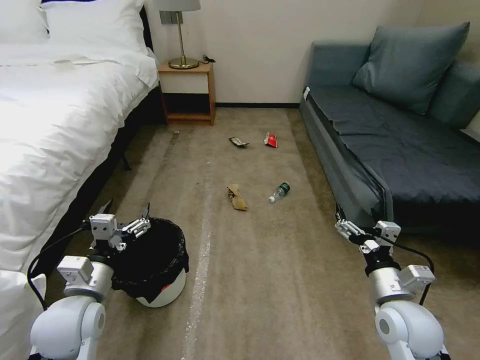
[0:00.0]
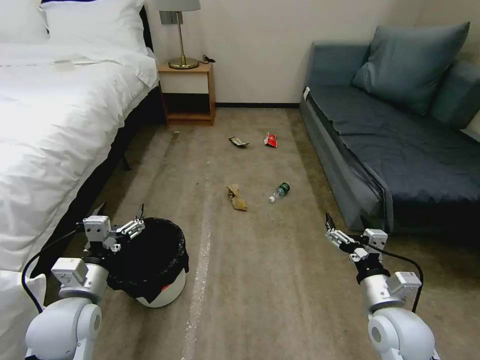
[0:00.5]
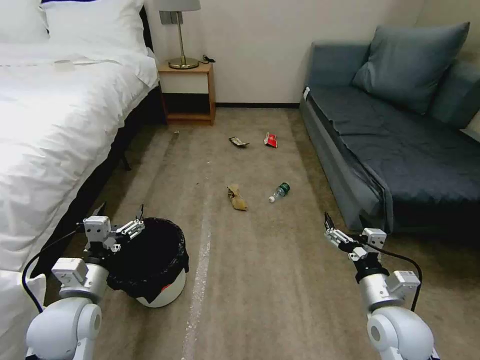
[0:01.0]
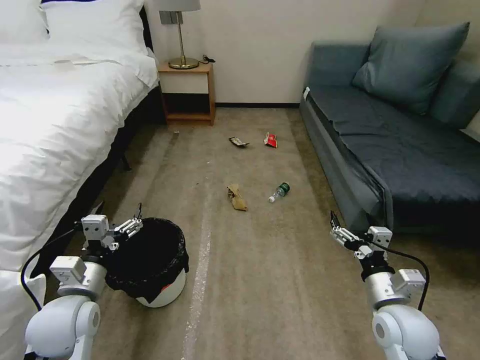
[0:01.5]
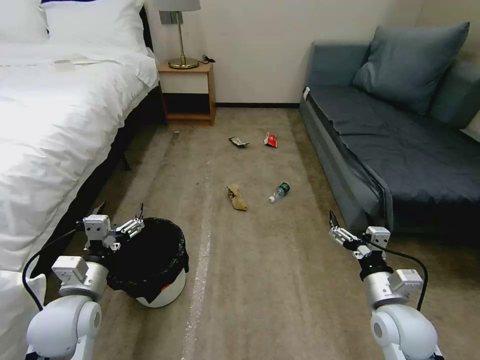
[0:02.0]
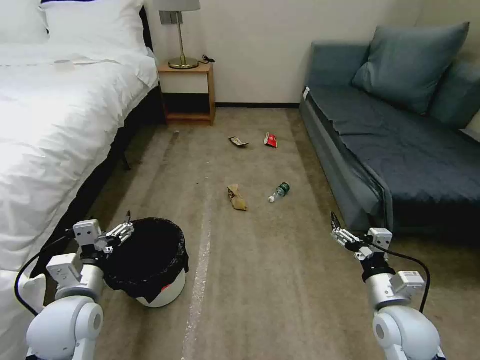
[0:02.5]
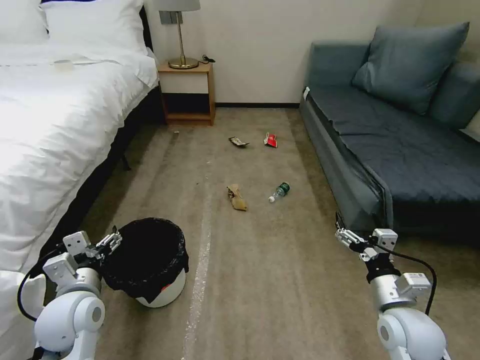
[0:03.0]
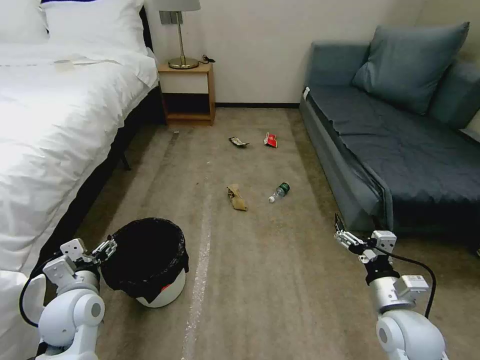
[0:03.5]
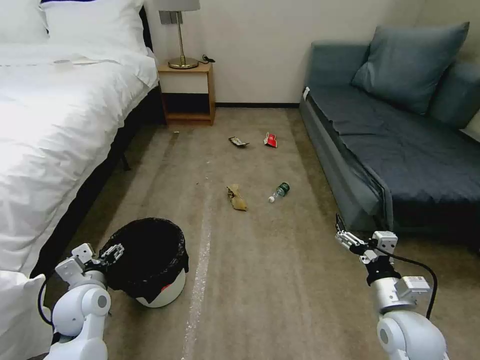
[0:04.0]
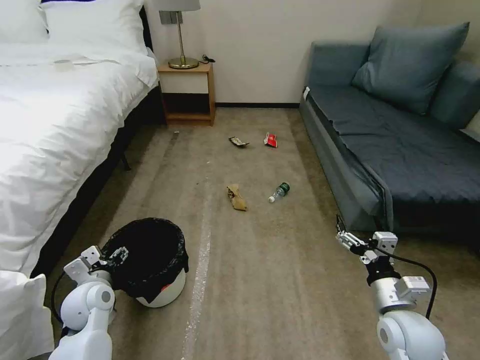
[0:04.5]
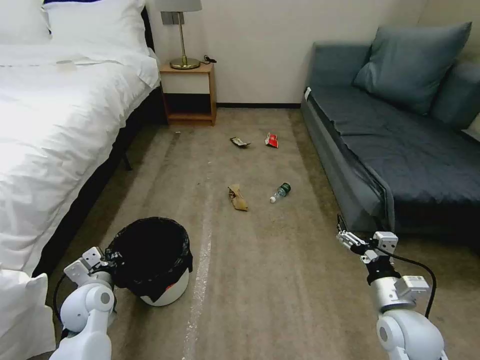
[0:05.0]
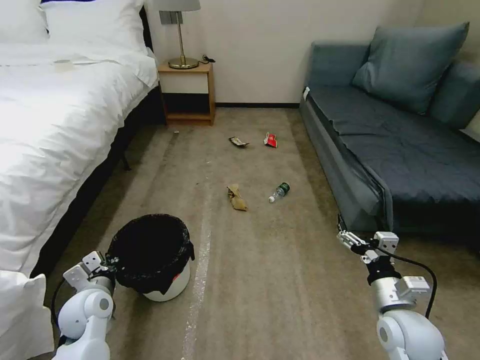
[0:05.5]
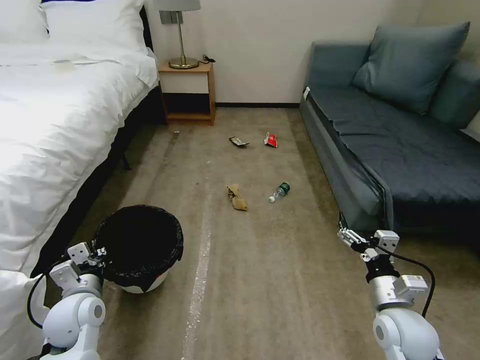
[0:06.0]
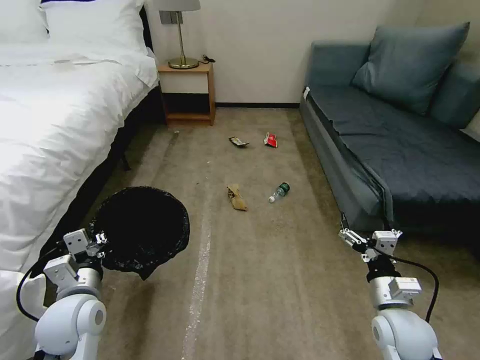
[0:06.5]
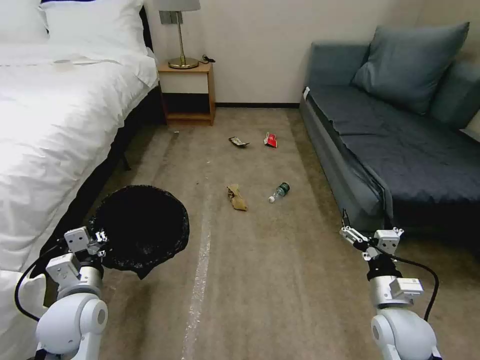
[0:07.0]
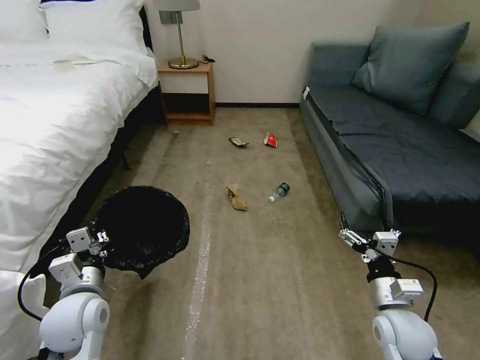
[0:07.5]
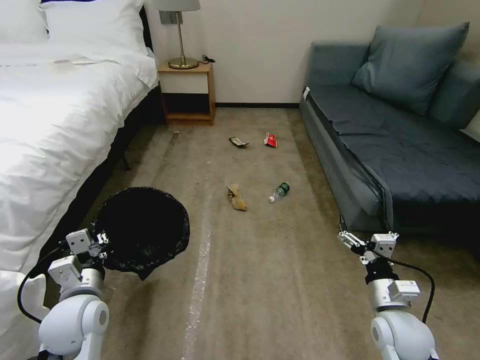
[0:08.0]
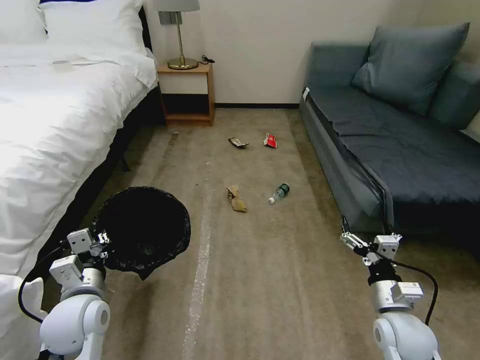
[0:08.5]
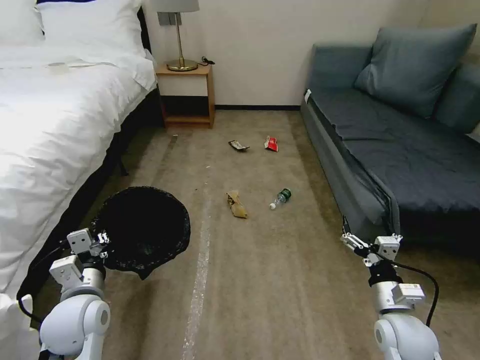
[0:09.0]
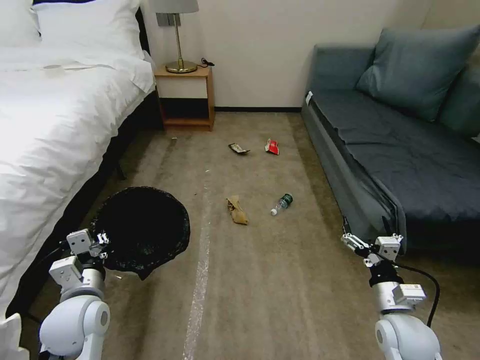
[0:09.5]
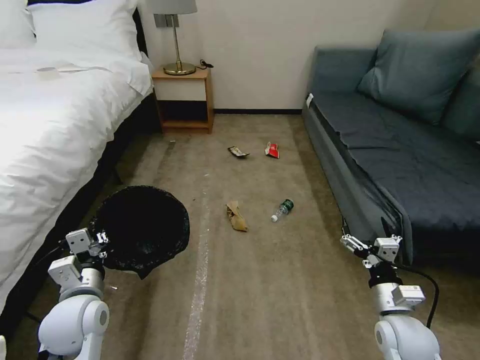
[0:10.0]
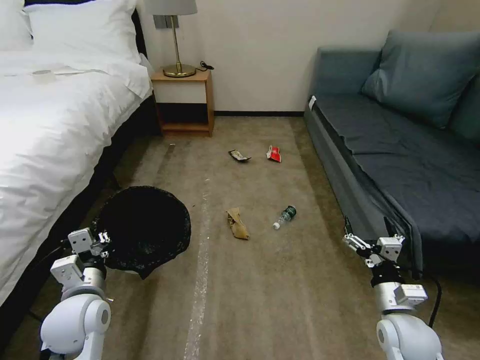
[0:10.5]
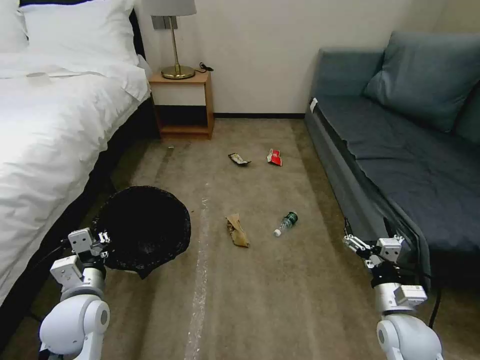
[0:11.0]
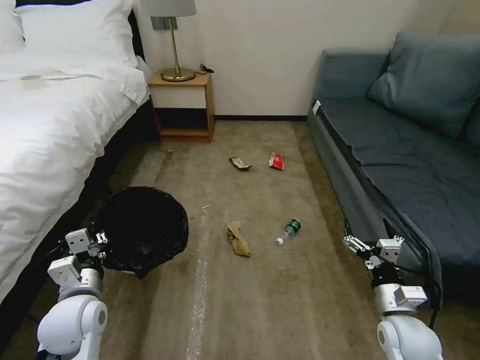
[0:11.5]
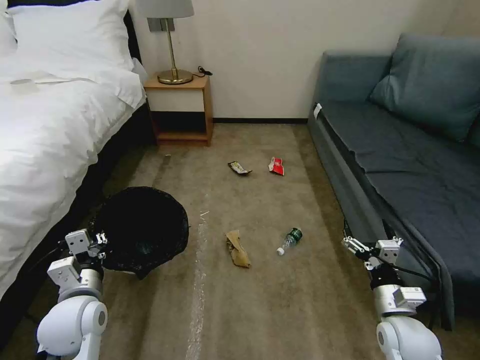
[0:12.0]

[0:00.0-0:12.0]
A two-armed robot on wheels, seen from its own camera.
Task of the whole recording: Pick up the trash bin, then pick up the garbage on the floor and place it into the trash bin.
0:04.0 to 0:06.0: The left gripper heads downward, covering some 10 cm, and closes its fingers.
0:06.0 to 0:08.0: The left gripper travels upward by some 5 cm.
0:08.0 to 0:10.0: Both grippers stay put.

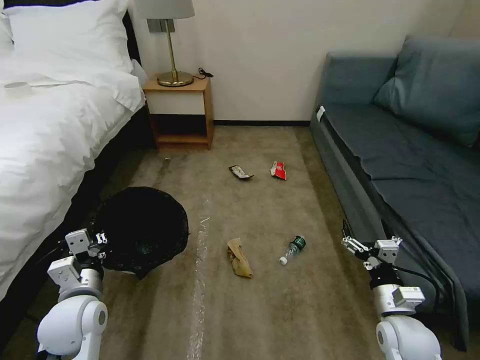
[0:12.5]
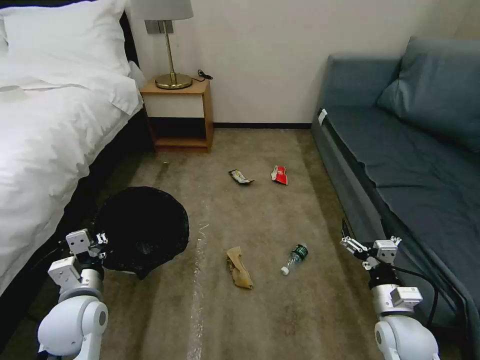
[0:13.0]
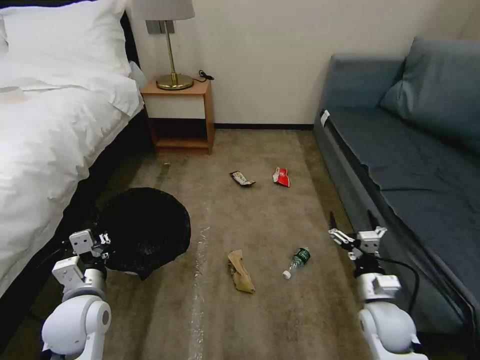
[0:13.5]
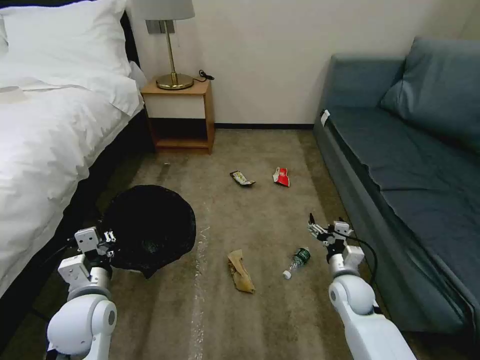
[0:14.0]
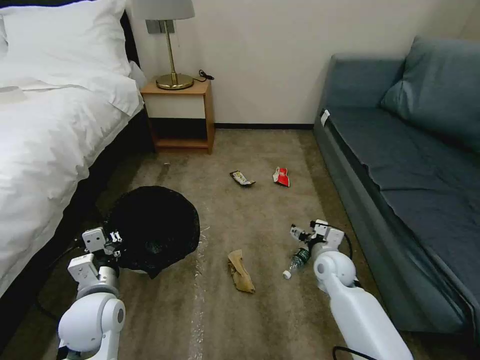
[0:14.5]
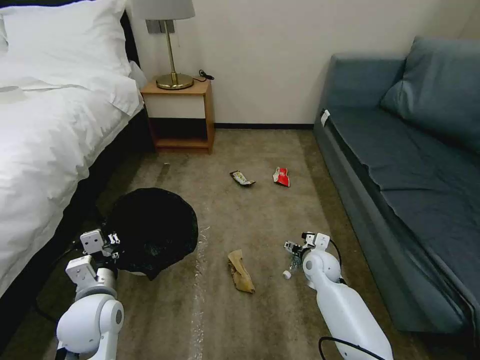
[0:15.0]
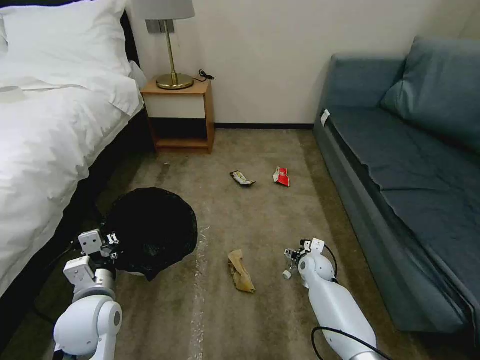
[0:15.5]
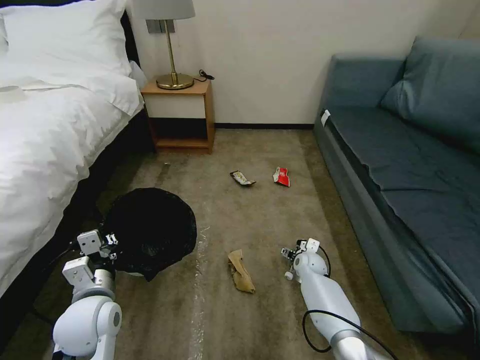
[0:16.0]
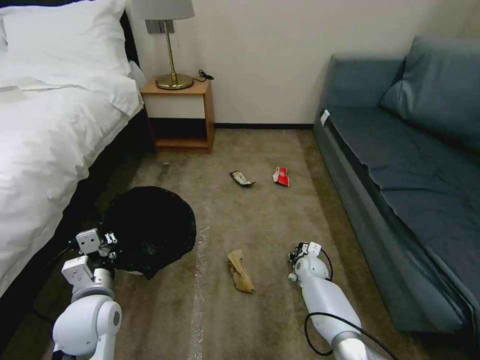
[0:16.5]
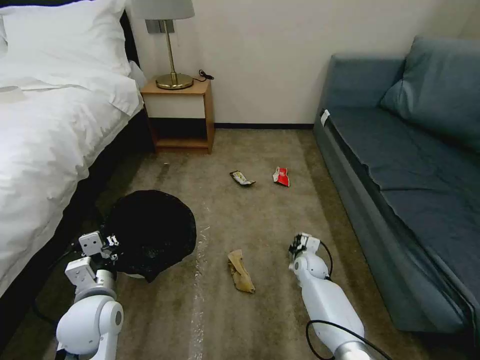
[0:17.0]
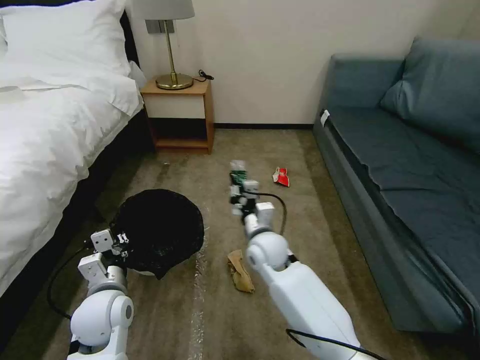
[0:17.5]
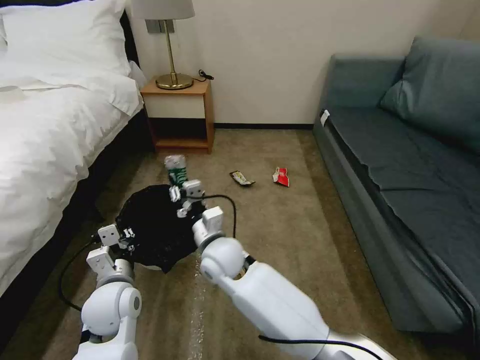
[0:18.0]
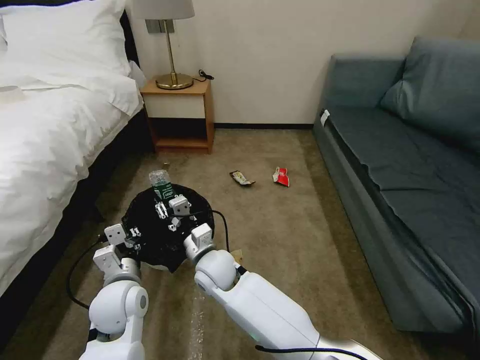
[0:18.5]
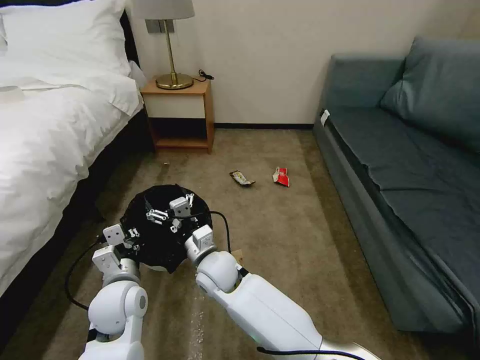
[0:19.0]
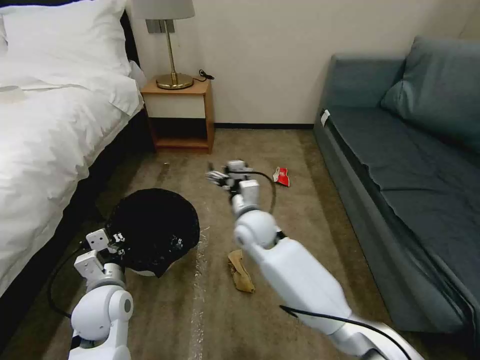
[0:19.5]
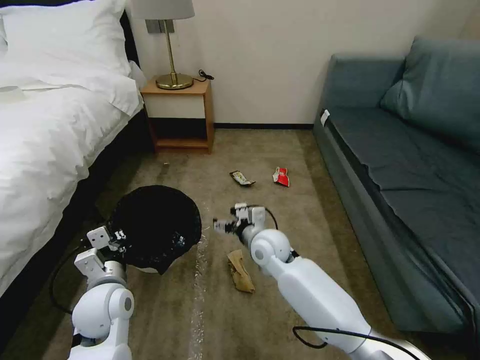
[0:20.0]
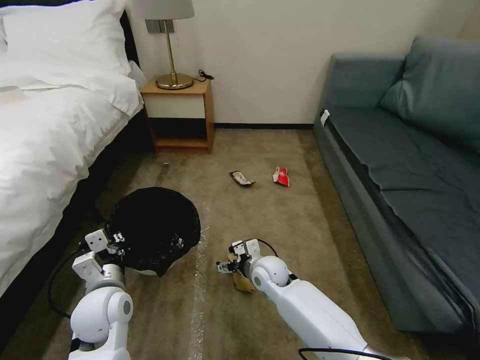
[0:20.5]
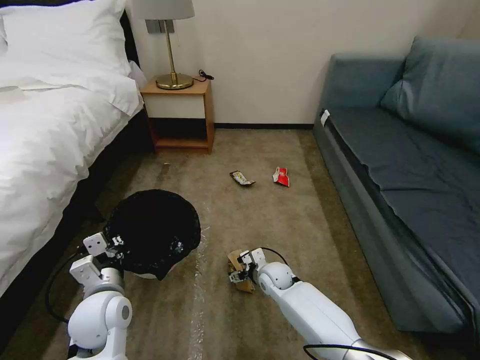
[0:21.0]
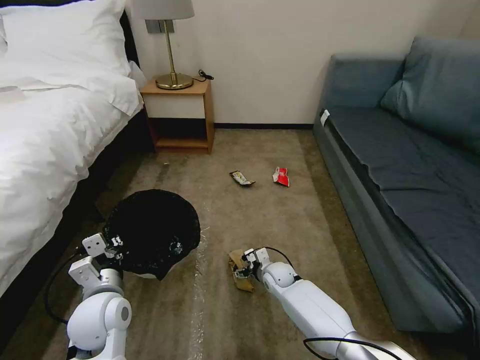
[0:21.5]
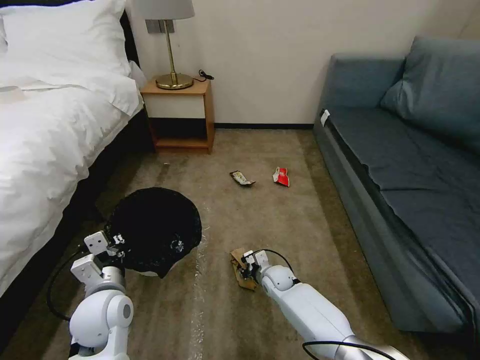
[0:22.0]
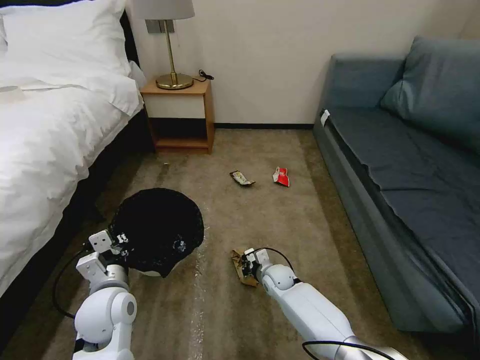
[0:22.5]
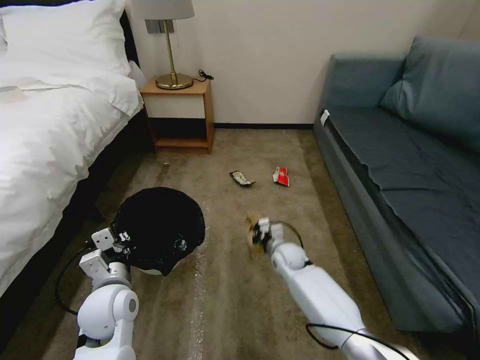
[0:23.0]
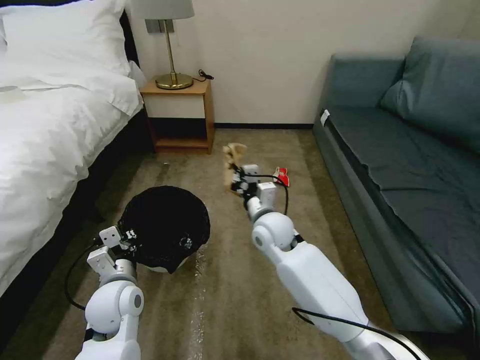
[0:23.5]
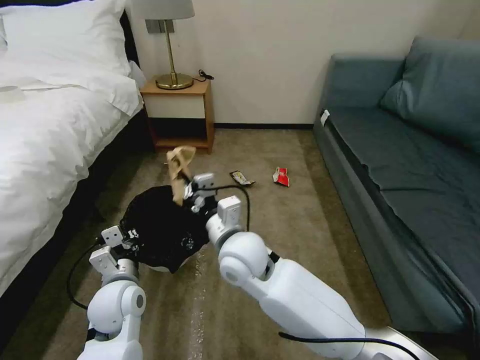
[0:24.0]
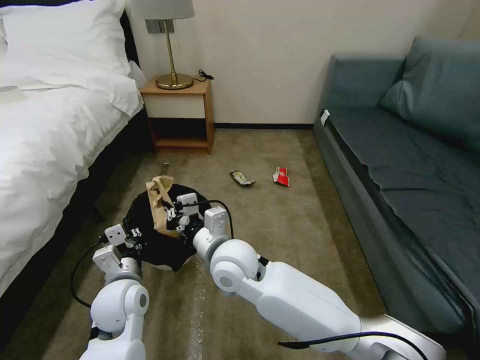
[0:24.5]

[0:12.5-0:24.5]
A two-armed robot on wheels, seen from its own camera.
Task of the whole recording: Pick up the trash bin, then pick up the garbage on the floor and place it into the trash bin.
0:12.5 to 0:14.5: The right gripper is displaced forward and to the left by about 20 cm.
0:14.5 to 0:16.5: The right gripper goes roughly 15 cm downward and forward, and closes its fingers.
0:16.5 to 0:18.5: The left gripper changes place by about 5 cm; the right gripper travels to the left and upward by some 35 cm.
0:18.5 to 0:20.5: The right gripper moves to the right and downward, about 15 cm, and opens its fingers.
0:20.5 to 0:22.5: The right gripper goes about 10 cm downward, and closes.
0:22.5 to 0:24.5: The right gripper goes roughly 30 cm upward and to the left.

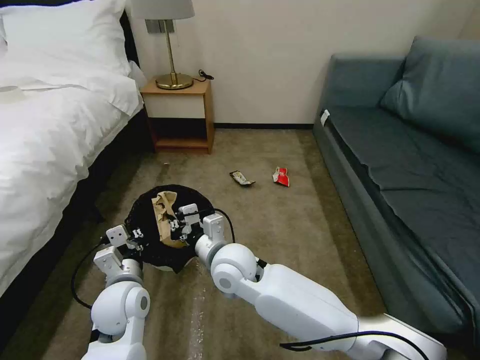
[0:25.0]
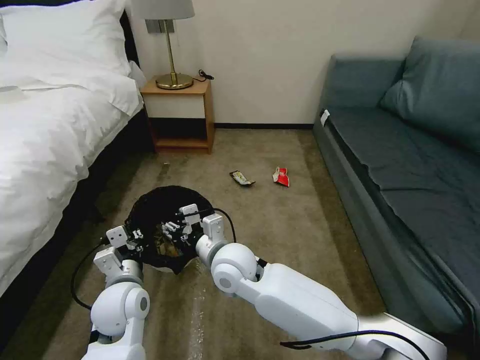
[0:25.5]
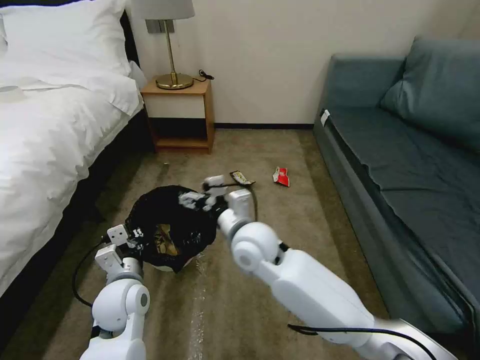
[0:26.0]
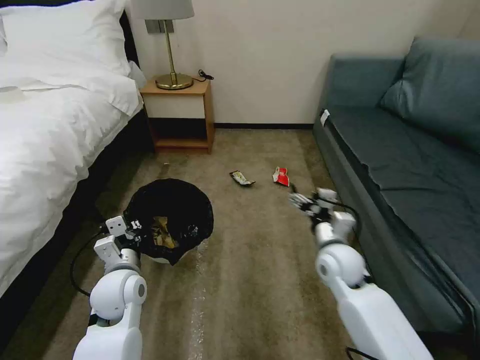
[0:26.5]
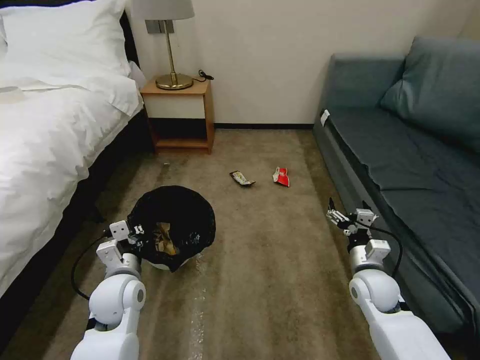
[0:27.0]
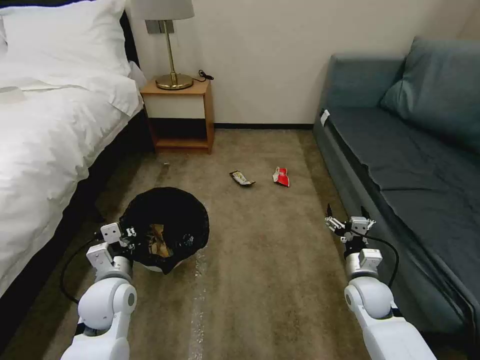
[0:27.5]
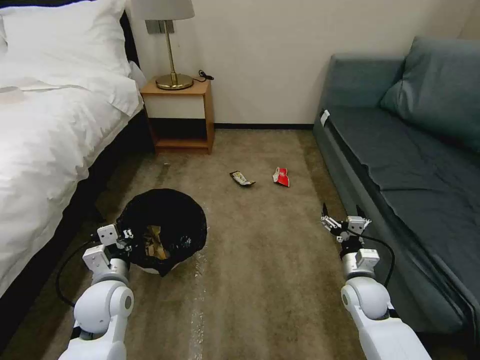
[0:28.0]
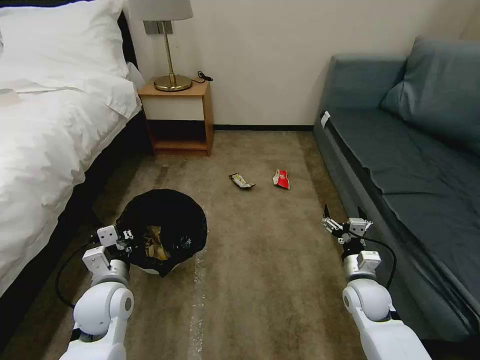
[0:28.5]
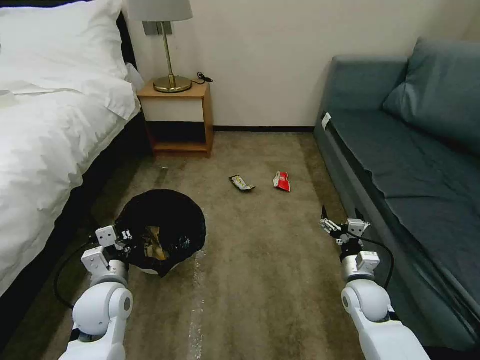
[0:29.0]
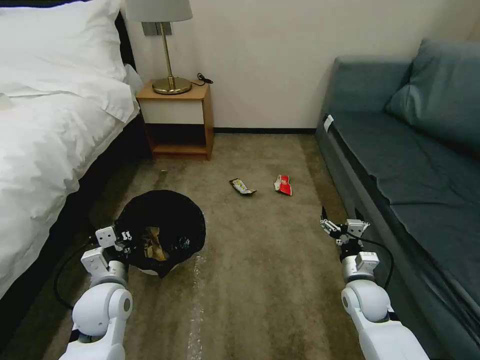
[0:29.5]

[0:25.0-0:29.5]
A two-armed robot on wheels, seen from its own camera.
Task of the whole recording: Pick up the trash bin, then pick up the garbage on the floor and place it into the trash bin.
0:25.0 to 0:27.0: The right gripper heads to the right, covering about 35 cm, and opens up.
0:27.0 to 0:29.5: The grippers move only a little.
